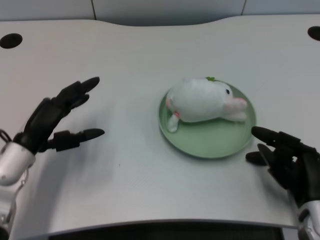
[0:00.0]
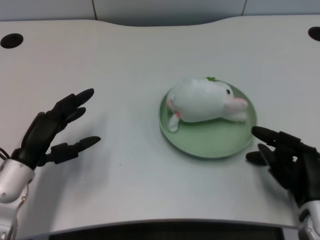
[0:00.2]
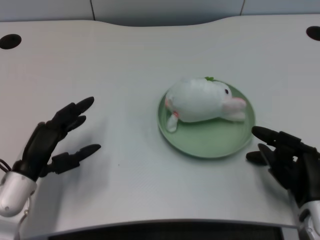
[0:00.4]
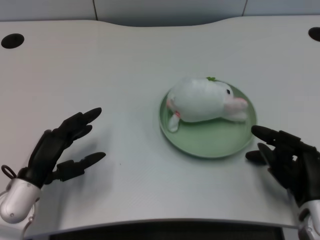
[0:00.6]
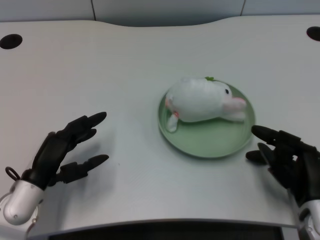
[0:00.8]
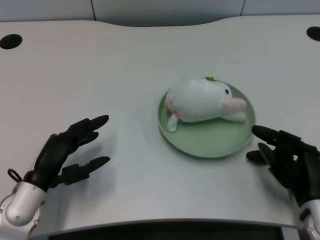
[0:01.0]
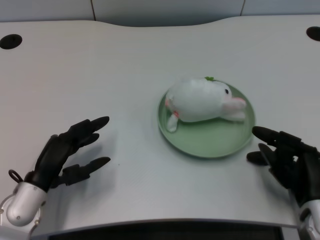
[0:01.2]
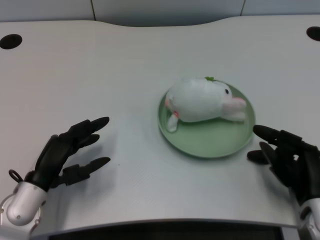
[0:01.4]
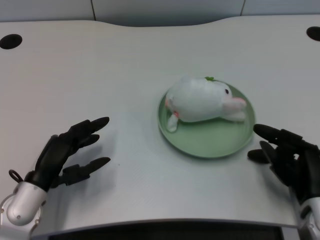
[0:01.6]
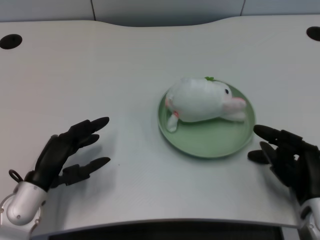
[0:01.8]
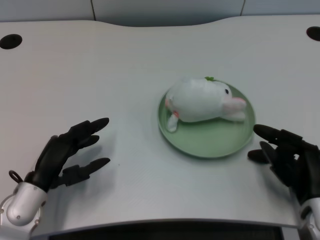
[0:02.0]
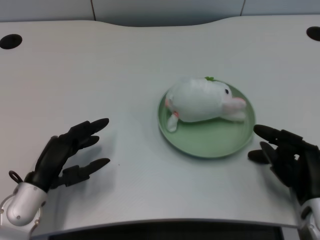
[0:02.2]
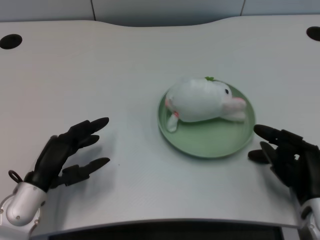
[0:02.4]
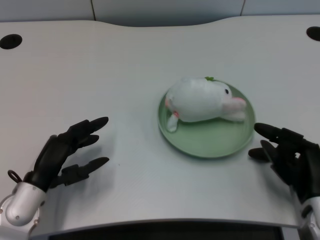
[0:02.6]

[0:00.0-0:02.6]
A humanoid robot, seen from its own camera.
Task of the whole recording: pick up the rabbit doll from the table and place it on the plate.
0:00.0 to 0:01.2: The left hand moves some 5 cm.
0:01.2 to 0:02.6: Both hands stay put.
